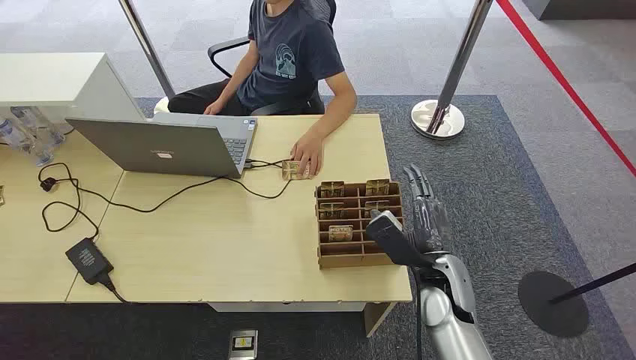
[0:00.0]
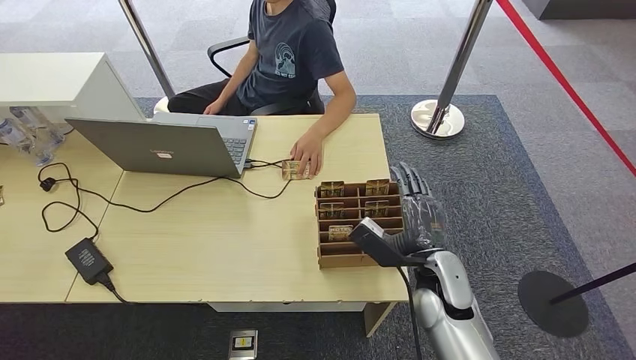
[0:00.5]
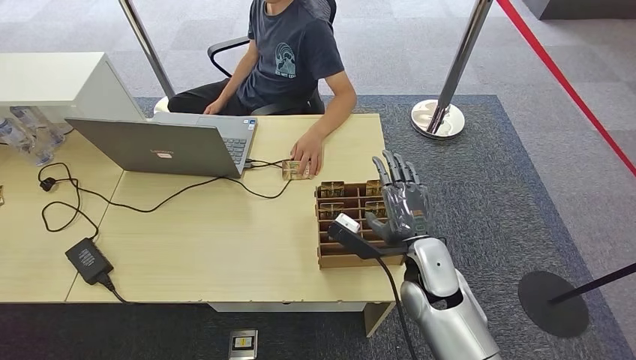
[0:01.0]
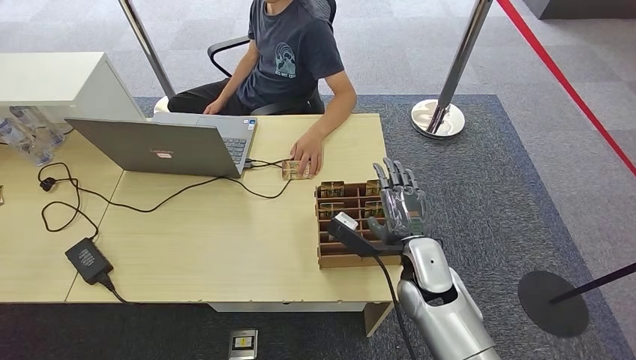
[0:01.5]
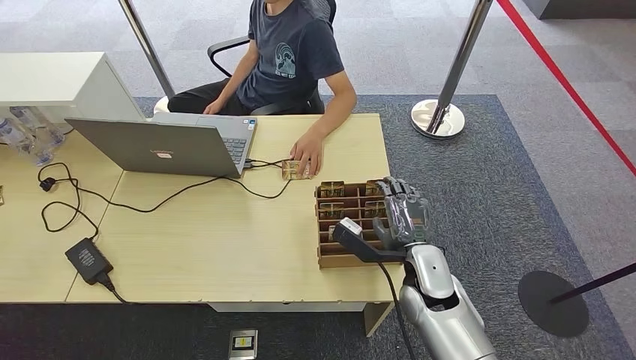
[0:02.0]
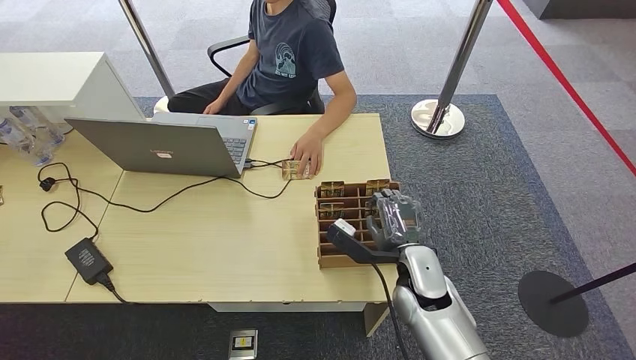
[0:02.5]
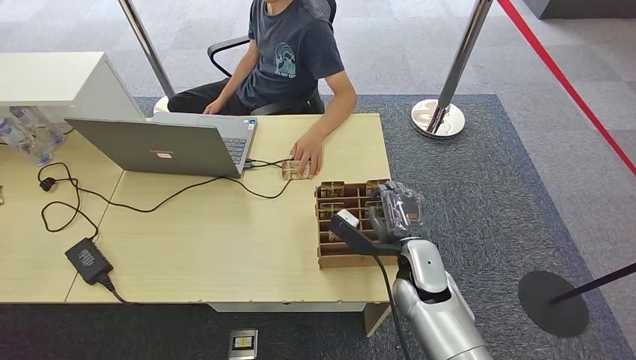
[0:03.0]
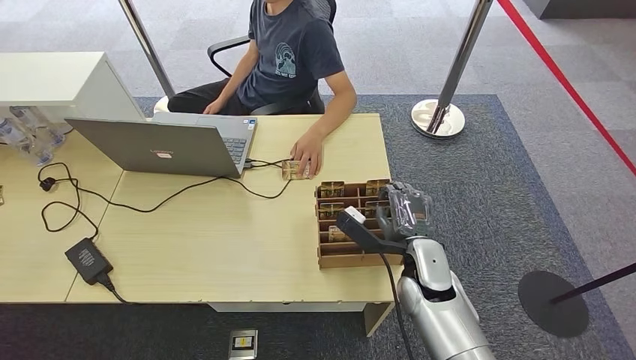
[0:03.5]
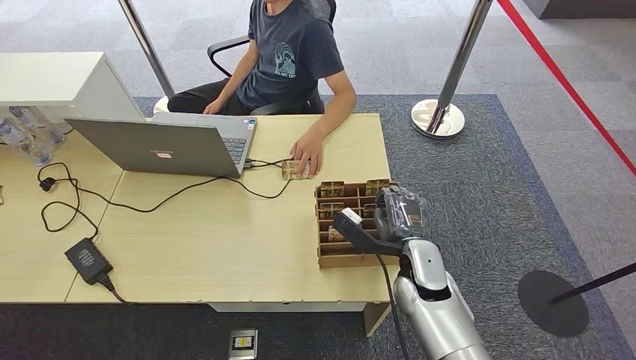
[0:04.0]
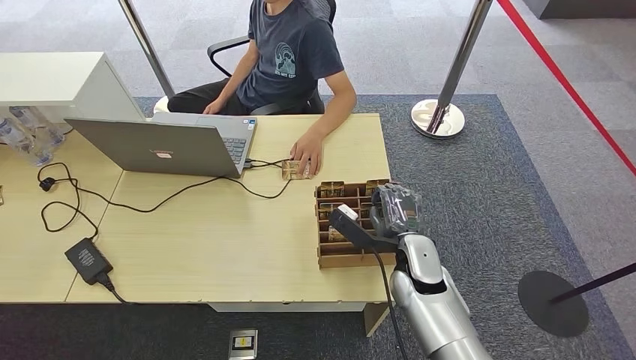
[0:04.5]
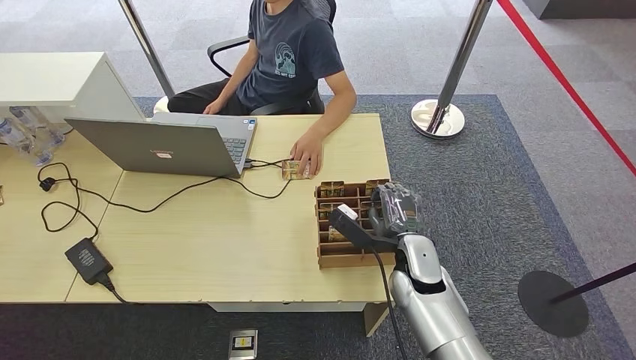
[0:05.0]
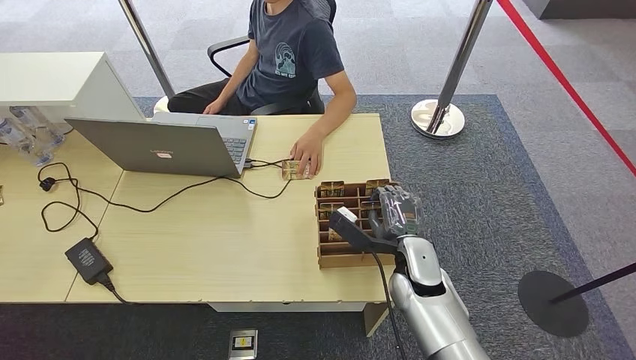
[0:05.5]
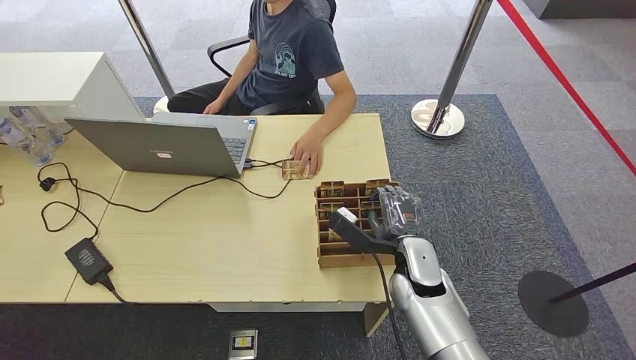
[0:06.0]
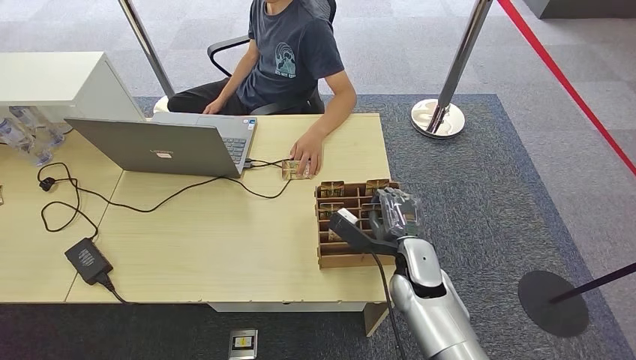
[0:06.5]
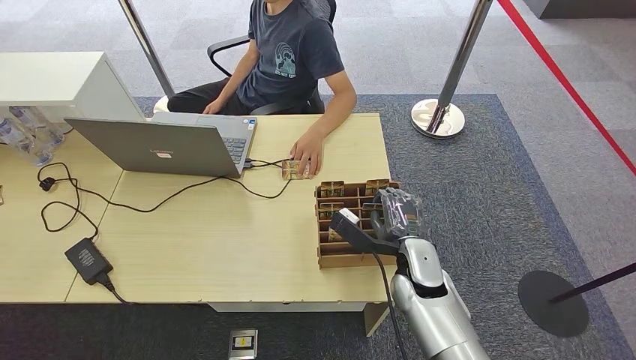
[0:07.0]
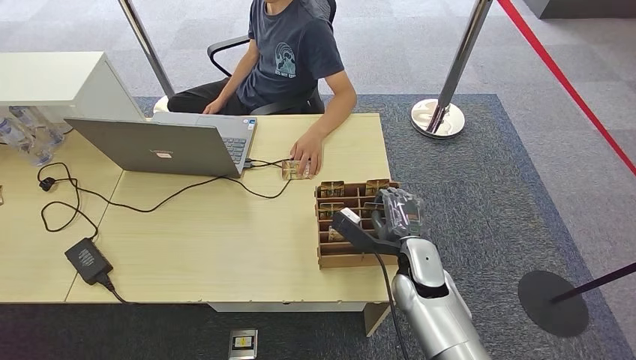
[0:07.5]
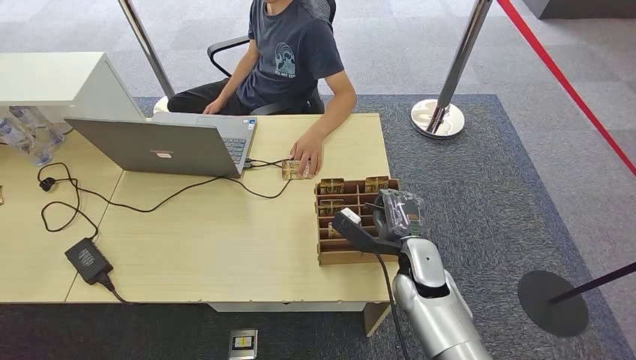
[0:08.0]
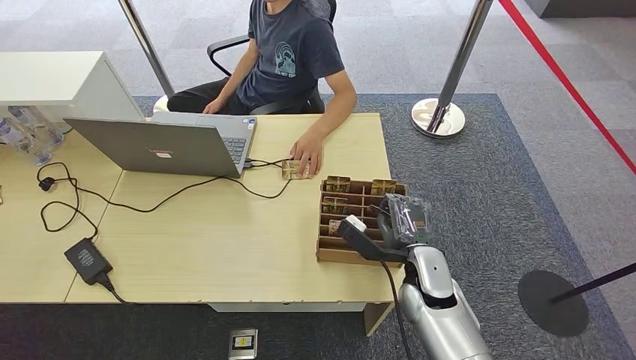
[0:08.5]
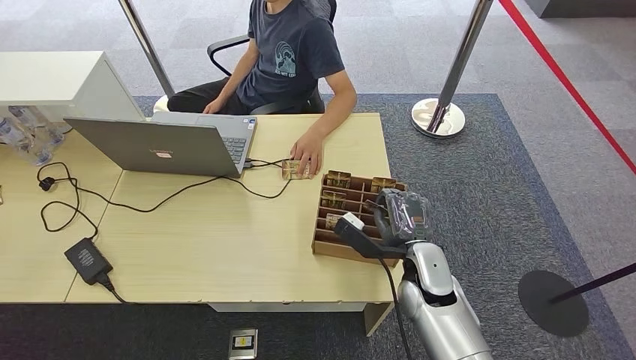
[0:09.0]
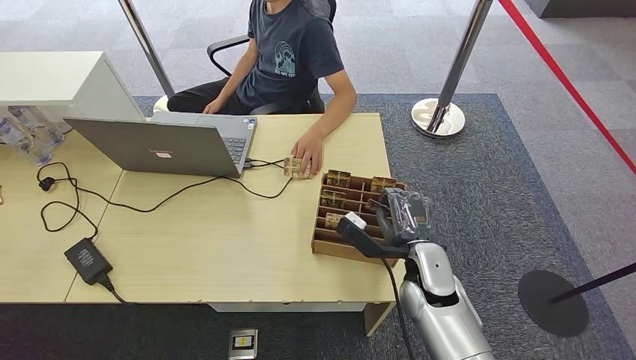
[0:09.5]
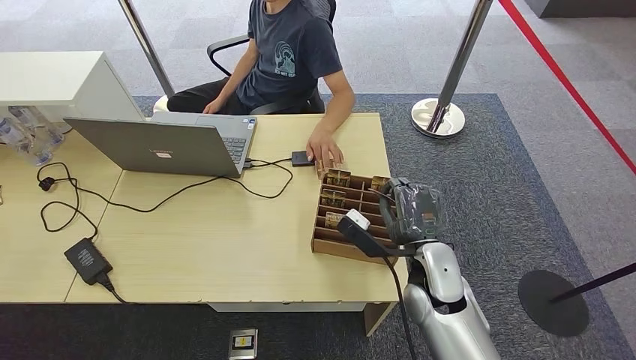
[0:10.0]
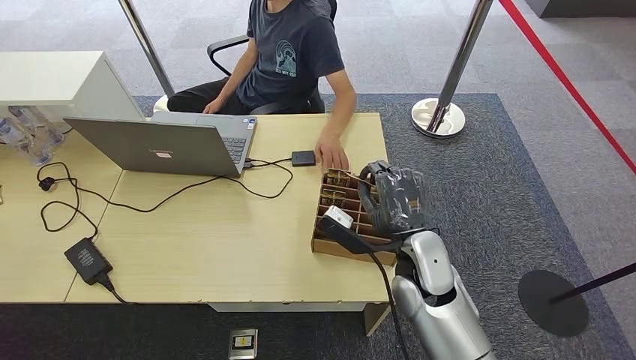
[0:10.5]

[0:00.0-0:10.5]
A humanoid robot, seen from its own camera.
Step, 0:00.0 to 0:08.5: Pick up the key card from the card box.
Step, 0:09.0 to 0:10.5: Hand the key card to the target.
0:02.0 to 0:04.0: The hands move only a little.
0:04.0 to 0:06.5: The two hands keep their place.
0:06.5 to 0:08.5: The hands make only small movements.
0:08.5 to 0:10.5: The right hand is displaced upward by roughly 5 cm.

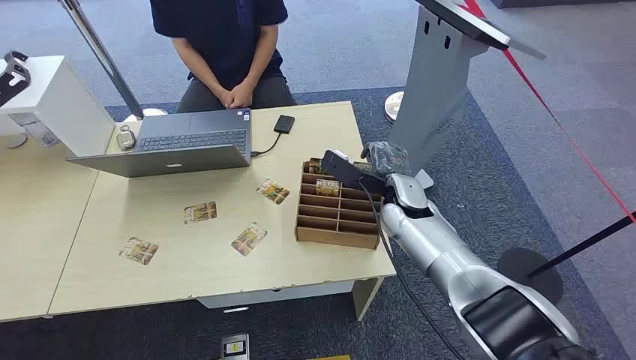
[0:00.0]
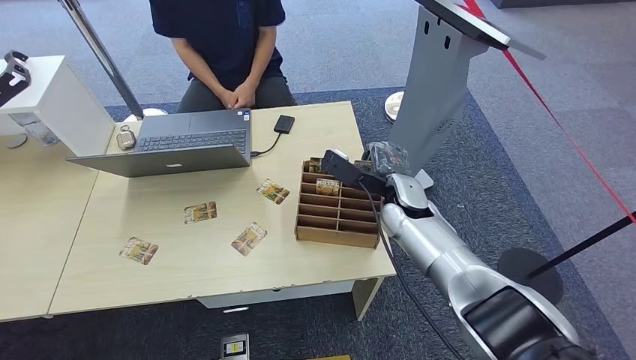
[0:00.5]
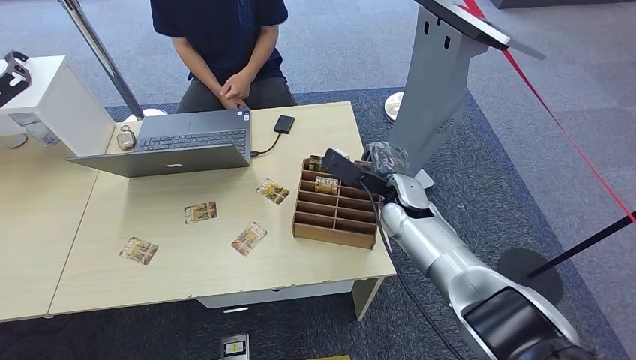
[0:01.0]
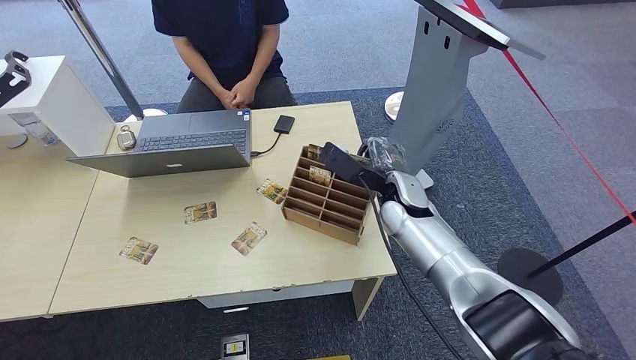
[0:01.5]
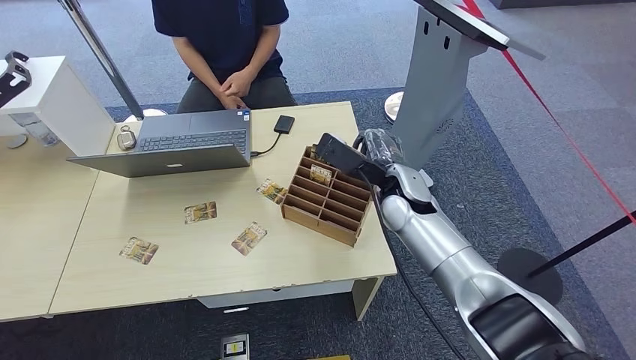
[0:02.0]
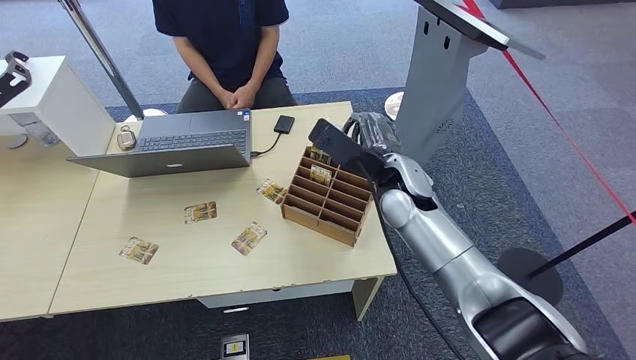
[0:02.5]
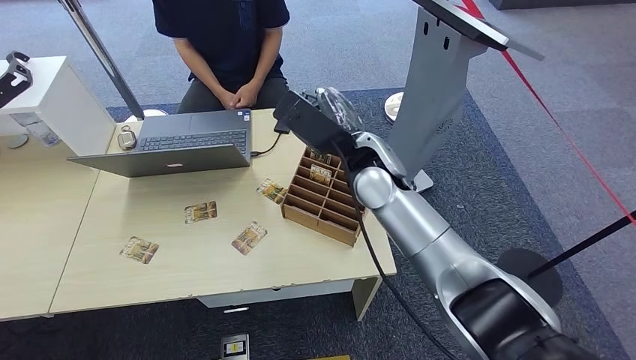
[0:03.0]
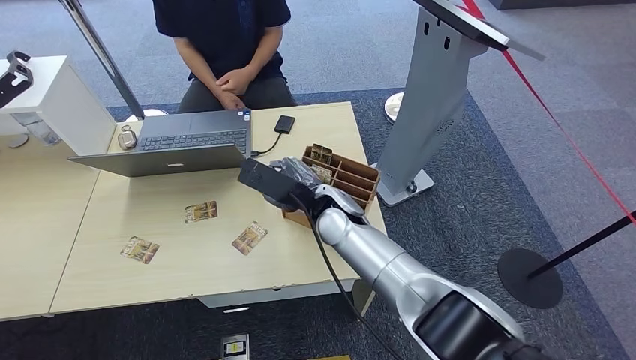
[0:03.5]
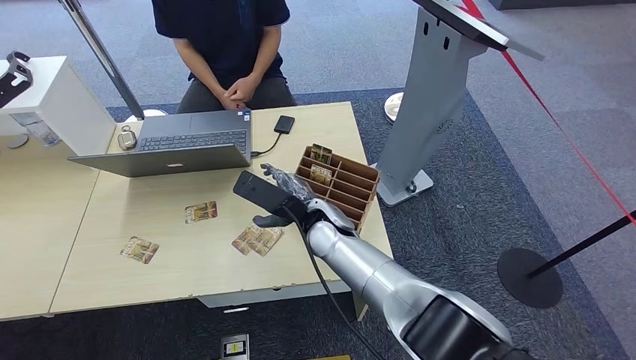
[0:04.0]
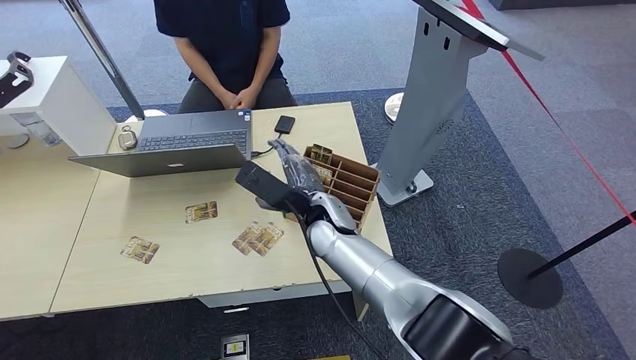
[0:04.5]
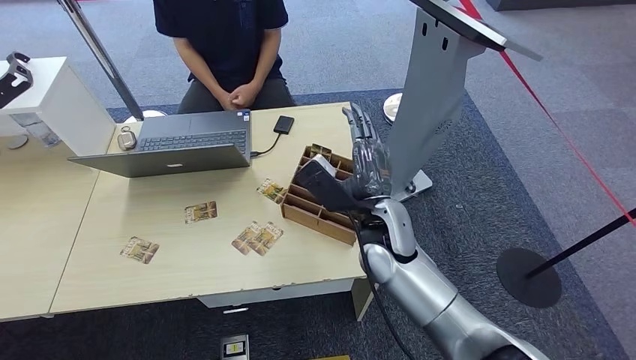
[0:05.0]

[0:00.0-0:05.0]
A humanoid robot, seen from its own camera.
Step, 0:00.0 to 0:03.0: Pick up the key card from the card box.
Step, 0:03.5 to 0:05.0: Hand the key card to the target.
0:02.5 to 0:05.0: The right hand travels backward and downward by about 10 cm.
